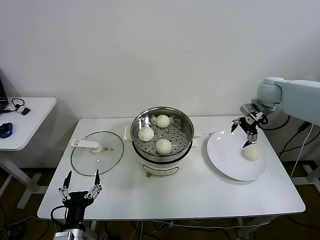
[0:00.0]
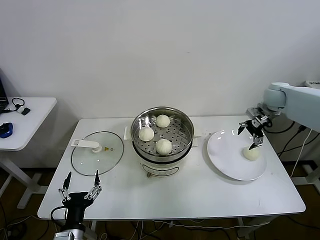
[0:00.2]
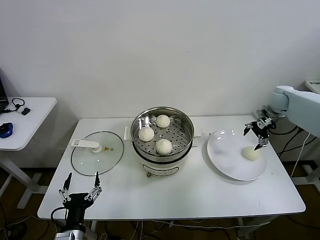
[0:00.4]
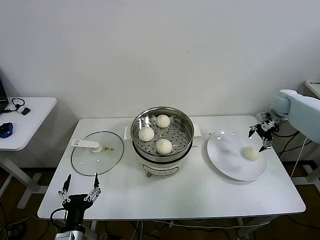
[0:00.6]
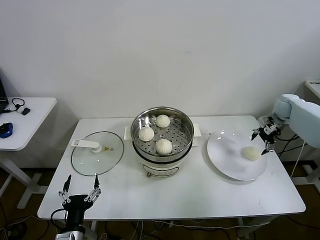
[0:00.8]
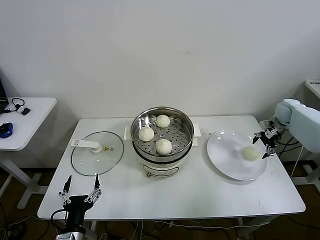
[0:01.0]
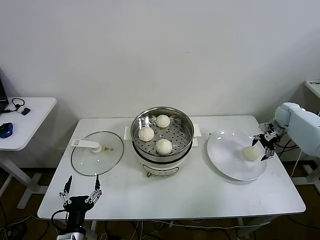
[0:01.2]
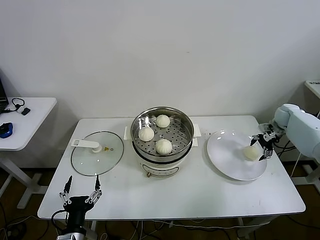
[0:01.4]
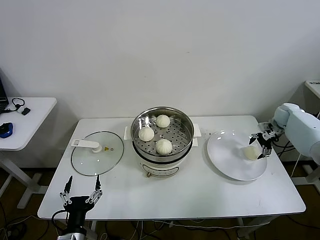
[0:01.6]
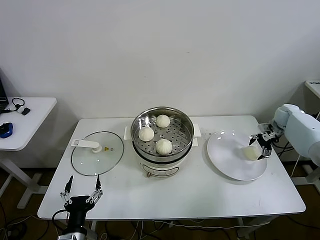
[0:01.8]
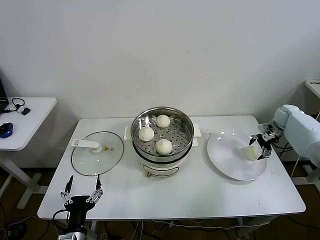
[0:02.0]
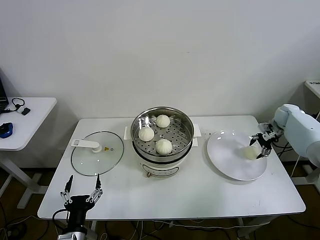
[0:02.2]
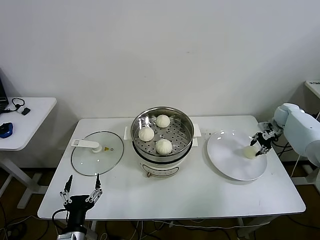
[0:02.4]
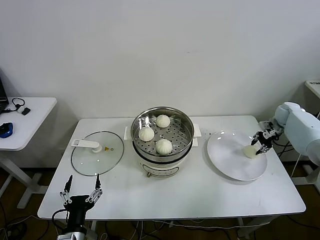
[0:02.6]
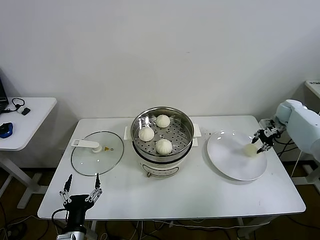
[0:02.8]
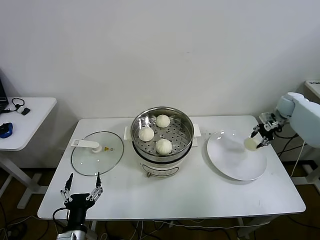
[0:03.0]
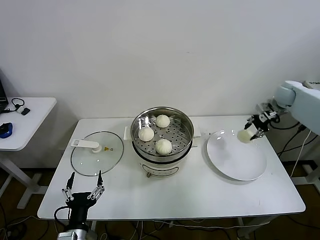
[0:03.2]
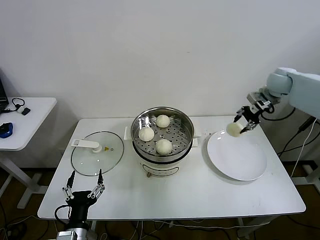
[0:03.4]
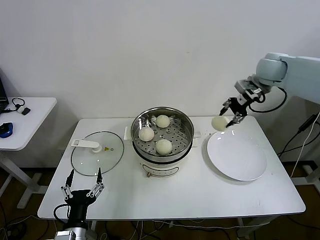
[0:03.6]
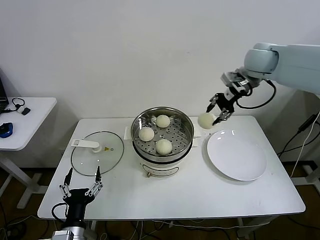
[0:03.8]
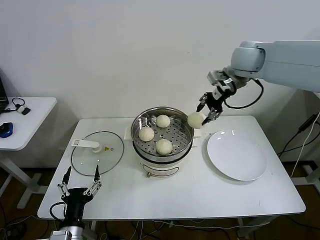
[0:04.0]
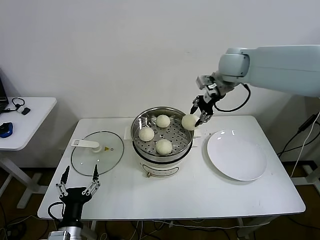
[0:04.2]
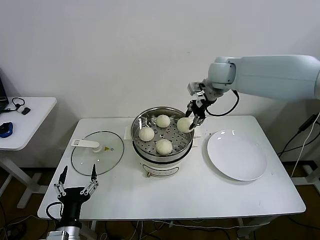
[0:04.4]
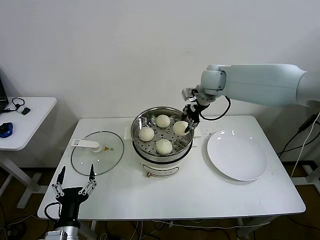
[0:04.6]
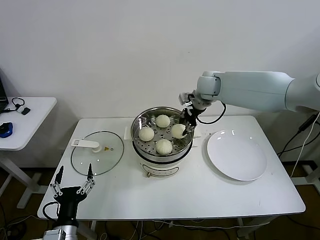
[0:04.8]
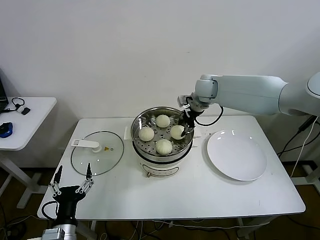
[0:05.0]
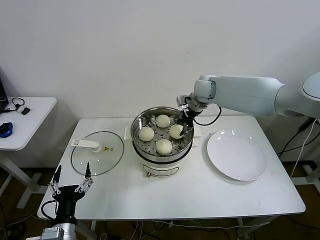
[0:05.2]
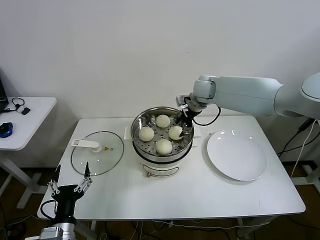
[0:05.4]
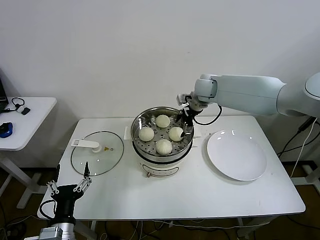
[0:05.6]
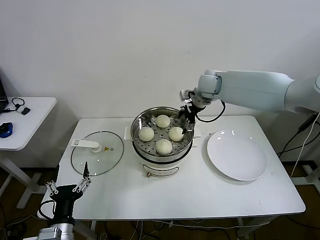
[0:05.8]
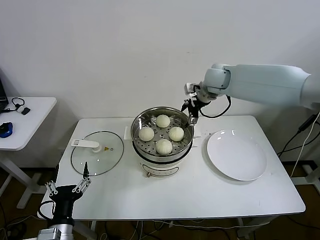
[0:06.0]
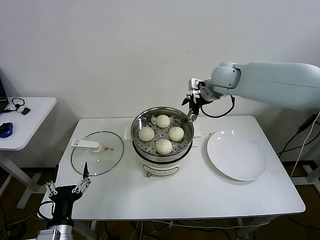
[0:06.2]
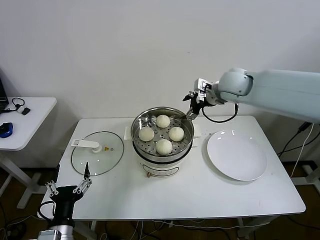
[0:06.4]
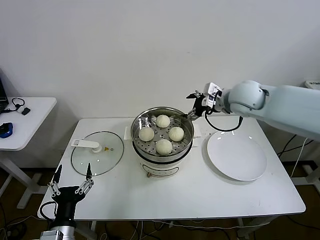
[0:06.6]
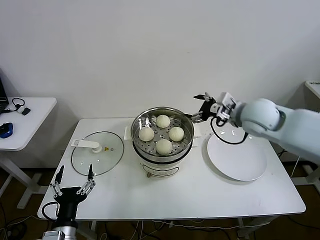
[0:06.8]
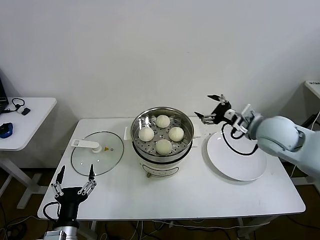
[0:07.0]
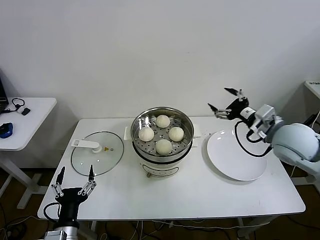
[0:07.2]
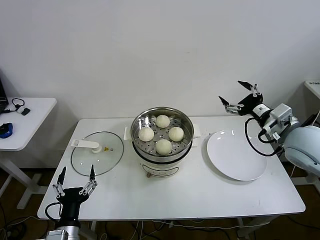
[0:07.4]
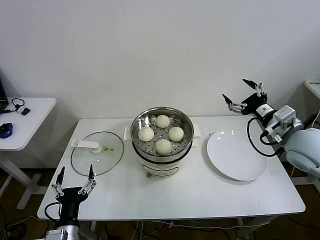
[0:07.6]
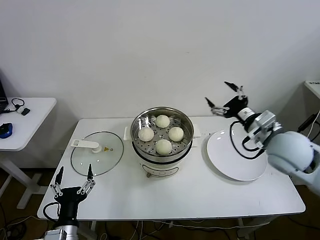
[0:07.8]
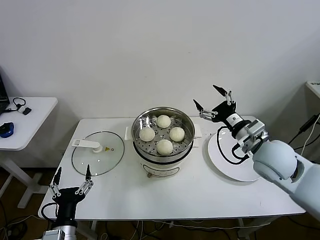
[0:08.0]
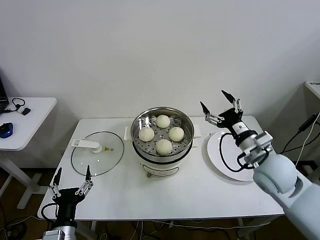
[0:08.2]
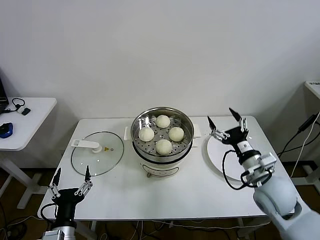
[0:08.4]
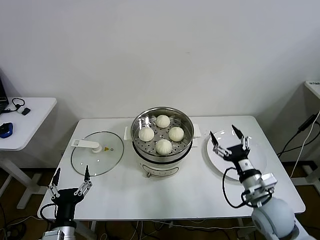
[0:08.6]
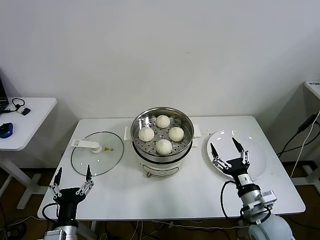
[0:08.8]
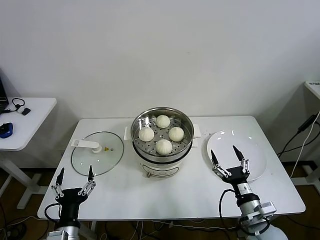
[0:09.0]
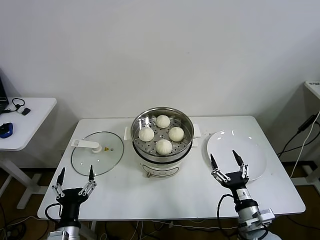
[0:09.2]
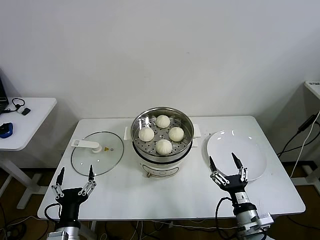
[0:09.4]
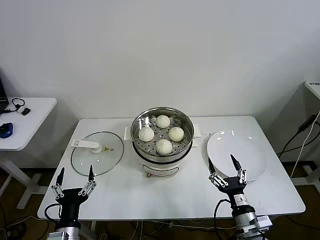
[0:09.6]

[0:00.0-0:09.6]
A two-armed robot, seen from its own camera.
Step, 0:00.0 to 0:02.6: Grasp the baozi in the plate with right gripper.
Step, 0:02.8 to 0:05.8: Place the baozi on the steamer with right gripper.
0:00.0 to 0:01.6: The right gripper moves downward and to the right, some 20 cm.
0:01.6 to 0:03.2: The right gripper goes some 10 cm upward, and closes up.
0:03.2 to 0:04.8: The right gripper heads to the left, covering about 30 cm.
0:04.8 to 0:06.4: The right gripper is displaced backward by approximately 5 cm, and opens its fingers.
0:06.4 to 0:08.0: The right gripper shifts some 20 cm backward and downward.
0:08.0 to 0:09.6: The right gripper shifts some 25 cm downward and backward.

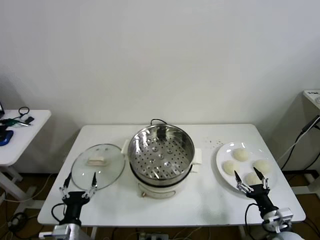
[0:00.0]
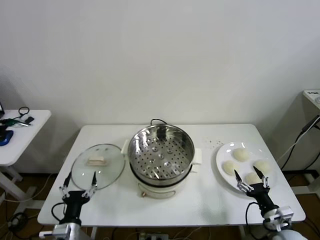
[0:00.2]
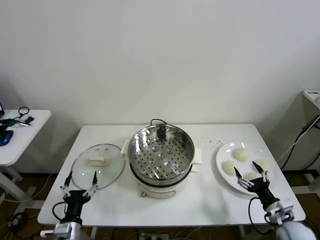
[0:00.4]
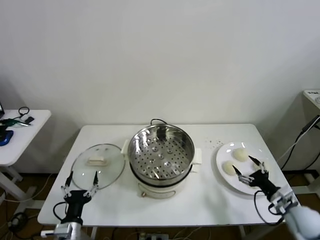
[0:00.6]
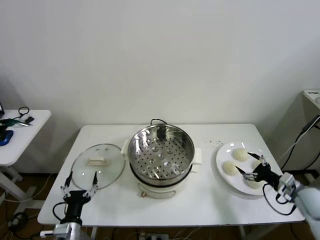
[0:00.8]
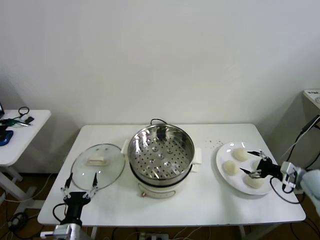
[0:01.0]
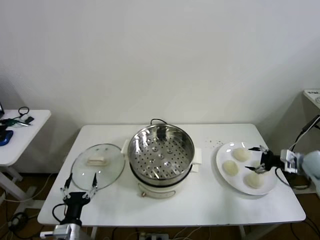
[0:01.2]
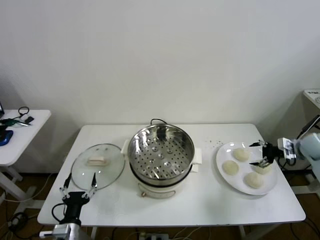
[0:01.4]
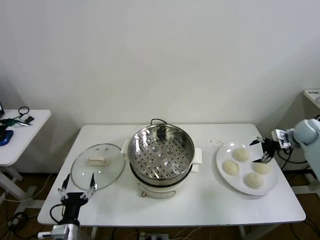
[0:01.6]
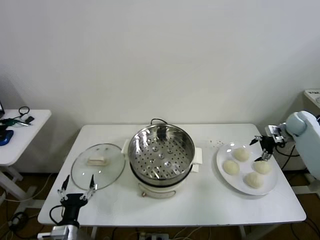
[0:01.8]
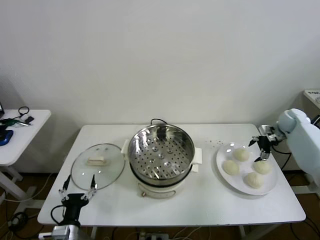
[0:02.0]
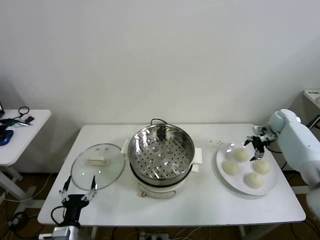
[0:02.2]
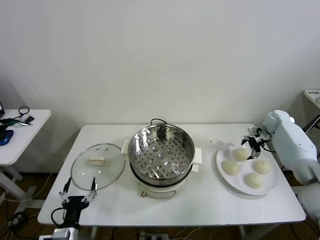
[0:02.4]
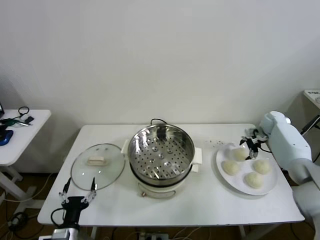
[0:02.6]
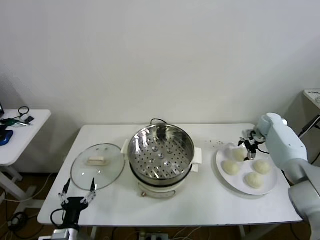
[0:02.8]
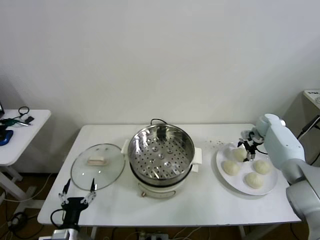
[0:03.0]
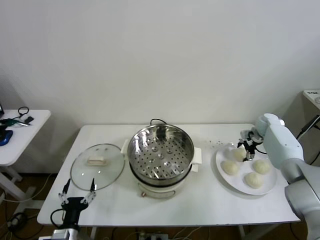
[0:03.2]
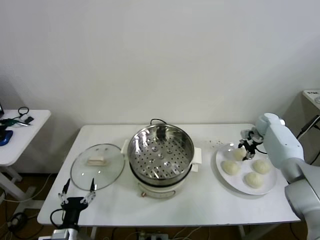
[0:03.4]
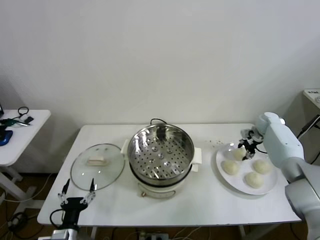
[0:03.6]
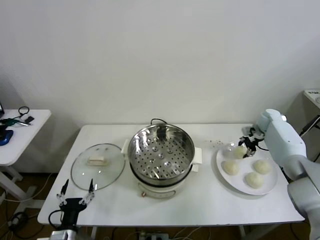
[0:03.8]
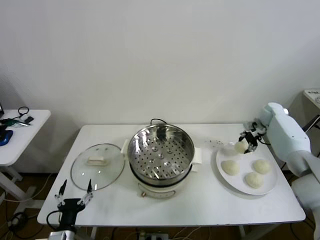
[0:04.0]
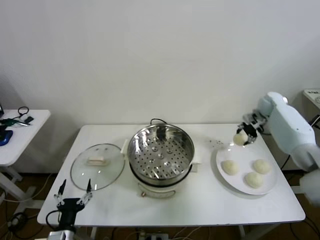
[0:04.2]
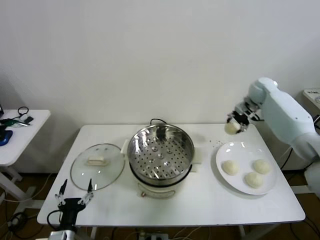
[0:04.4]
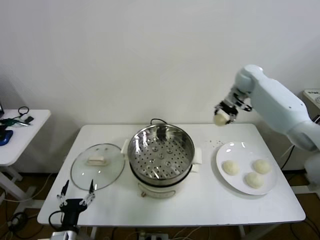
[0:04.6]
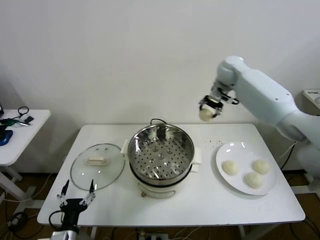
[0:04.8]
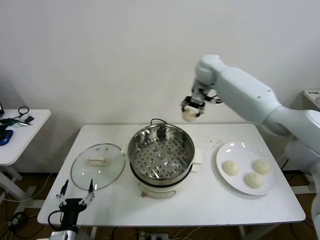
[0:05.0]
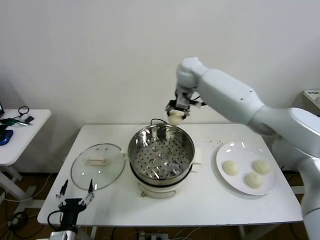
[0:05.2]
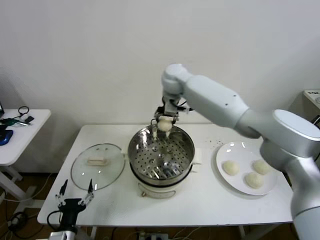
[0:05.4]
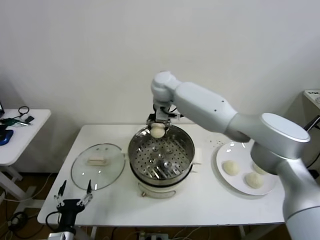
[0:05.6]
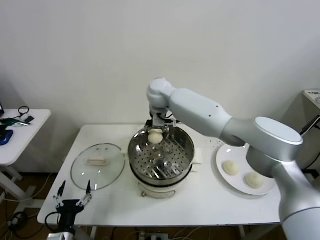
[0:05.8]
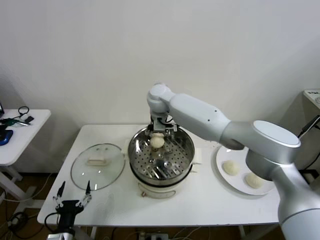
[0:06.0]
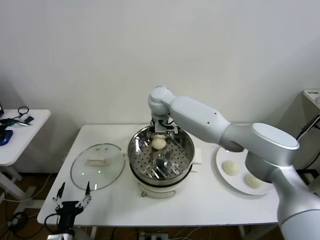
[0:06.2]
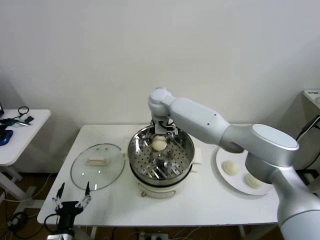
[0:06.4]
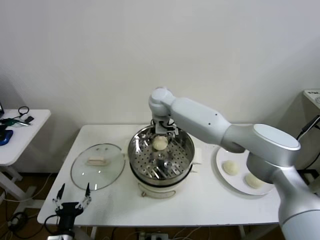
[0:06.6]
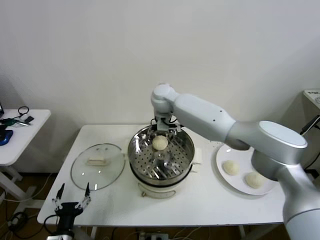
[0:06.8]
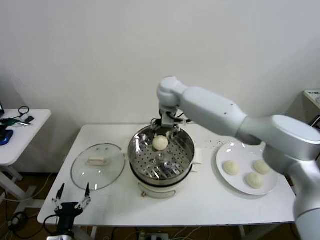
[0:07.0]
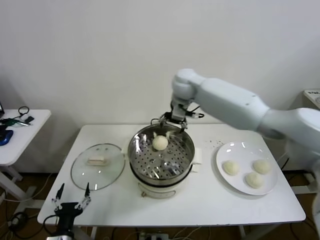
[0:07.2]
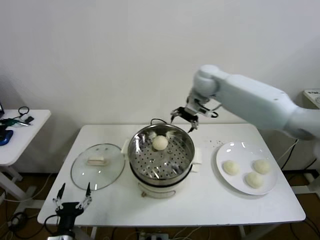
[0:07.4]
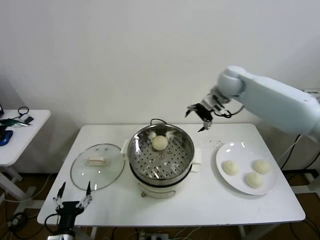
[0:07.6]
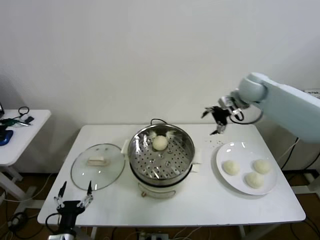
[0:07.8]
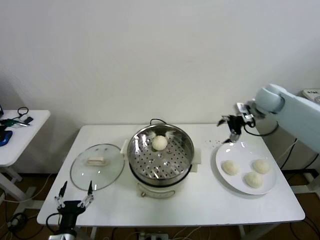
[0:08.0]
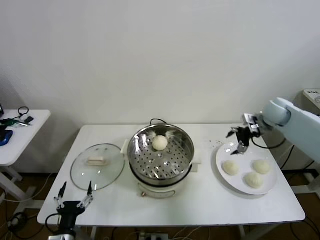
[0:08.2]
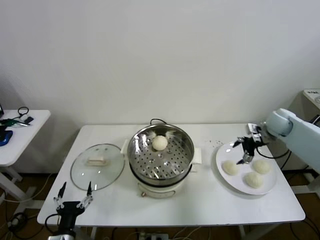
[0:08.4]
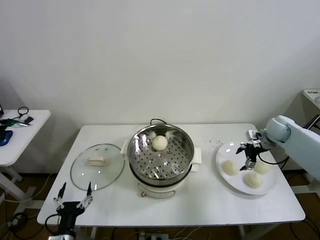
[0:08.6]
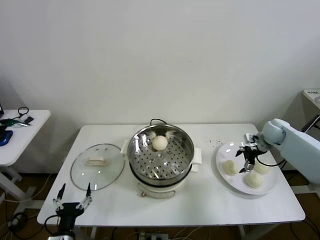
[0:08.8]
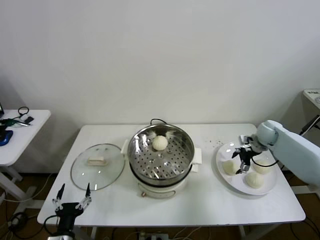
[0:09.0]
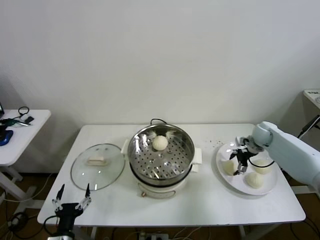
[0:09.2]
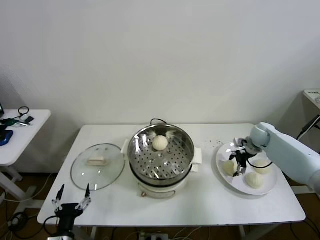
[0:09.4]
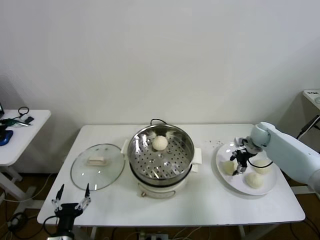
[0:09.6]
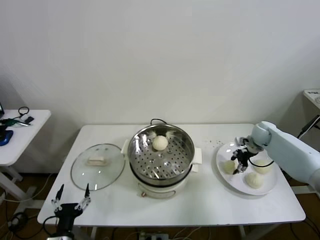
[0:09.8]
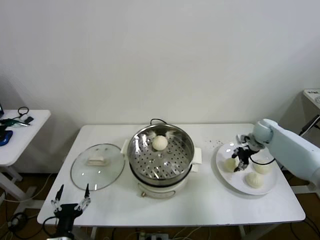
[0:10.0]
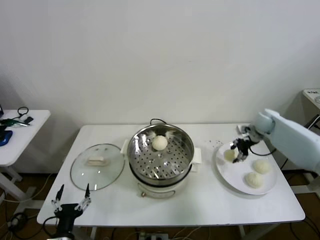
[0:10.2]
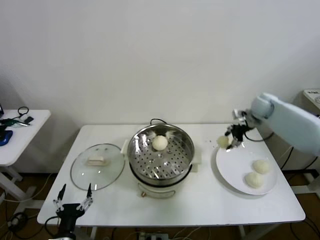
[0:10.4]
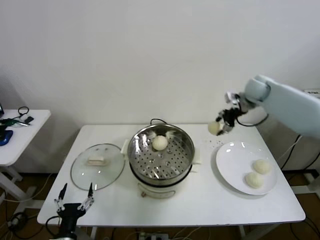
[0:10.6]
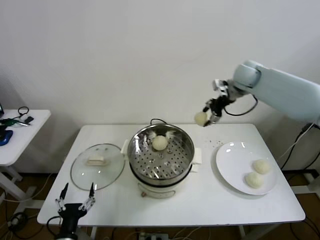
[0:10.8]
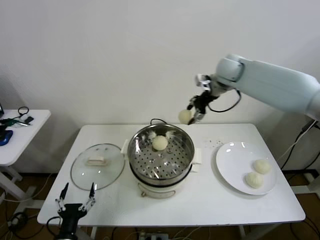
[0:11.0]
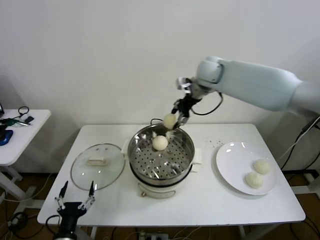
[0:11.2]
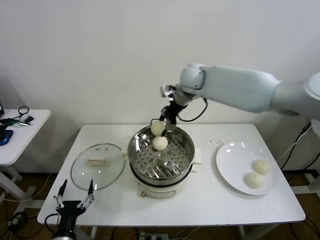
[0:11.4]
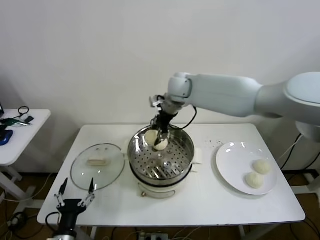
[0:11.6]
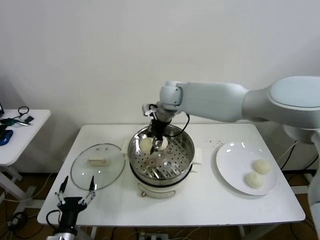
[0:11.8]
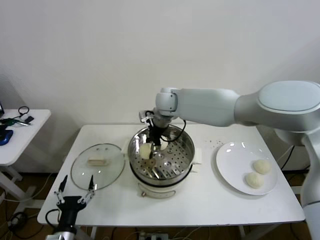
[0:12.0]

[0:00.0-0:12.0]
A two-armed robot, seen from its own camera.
Step, 0:00.0 to 0:03.4: Grasp the baozi in the plate with right gripper.
Step, 0:03.6 to 0:06.4: Place the baozi on the steamer with right gripper.
Step, 0:06.6 to 0:09.6: Grasp the baozi in the plate with right gripper.
0:01.6 to 0:03.0: The right gripper heads to the left, forward and downward, covering roughly 15 cm.
0:03.0 to 0:04.4: The right gripper heads upward and to the left, covering roughly 20 cm, and closes.
0:04.4 to 0:06.0: The right gripper moves to the left, roughly 35 cm.
0:06.0 to 0:07.6: The right gripper heads to the right, covering roughly 25 cm, and opens its fingers.
0:07.6 to 0:09.0: The right gripper heads downward and to the right, covering approximately 25 cm.
0:09.0 to 0:10.4: The right gripper moves upward and forward, some 15 cm, and closes.
0:10.4 to 0:12.0: The right gripper heads to the left, covering some 35 cm.
